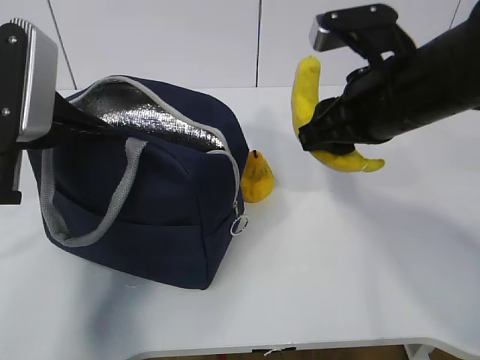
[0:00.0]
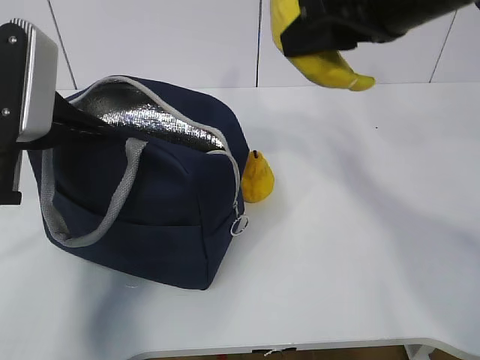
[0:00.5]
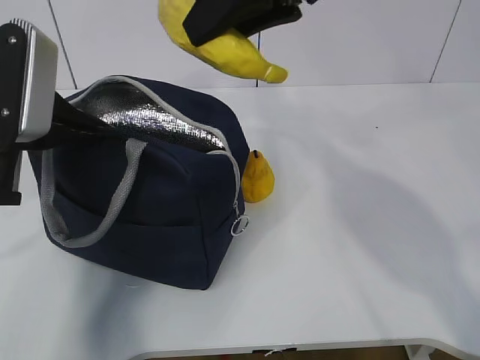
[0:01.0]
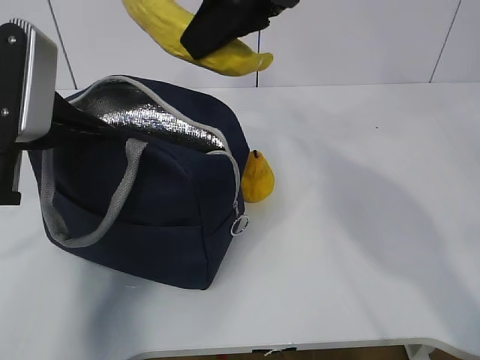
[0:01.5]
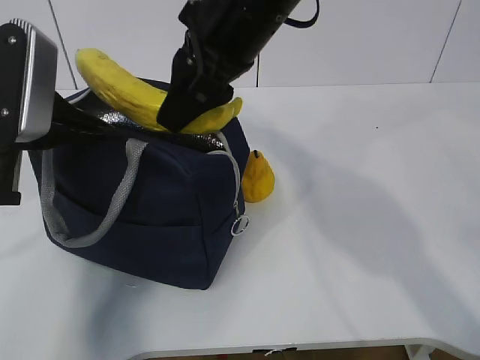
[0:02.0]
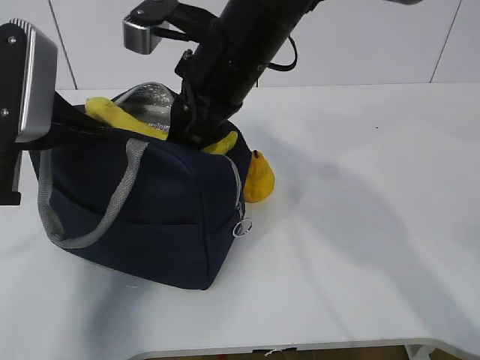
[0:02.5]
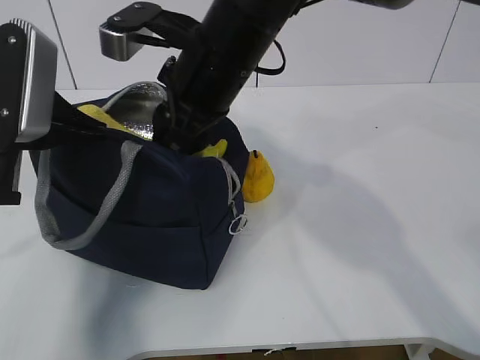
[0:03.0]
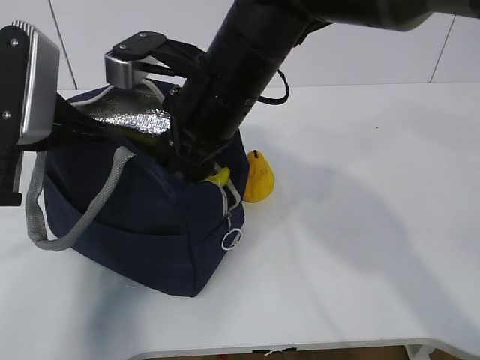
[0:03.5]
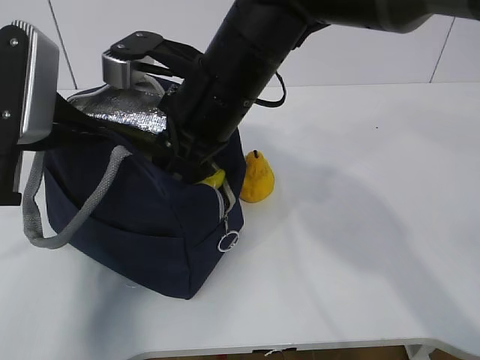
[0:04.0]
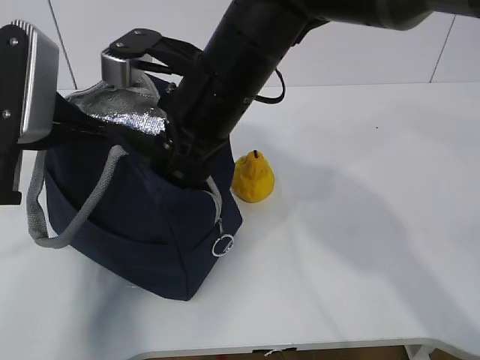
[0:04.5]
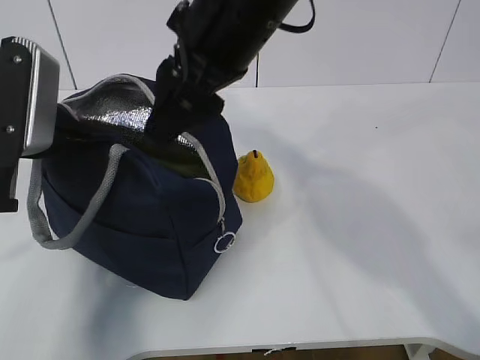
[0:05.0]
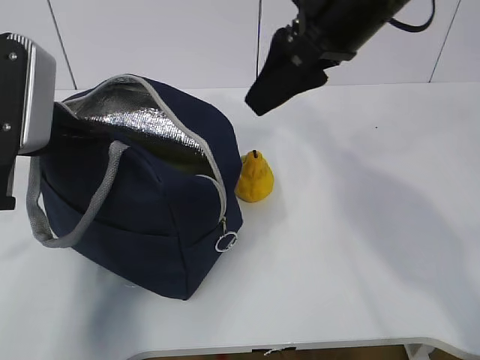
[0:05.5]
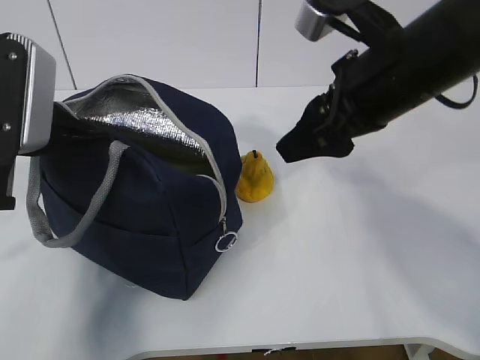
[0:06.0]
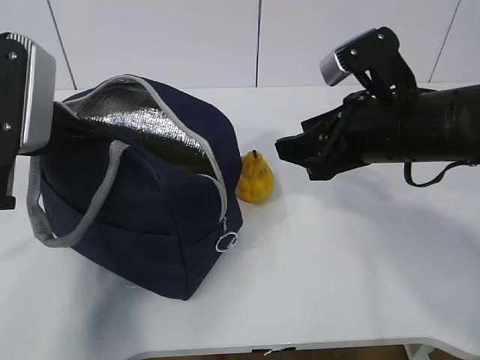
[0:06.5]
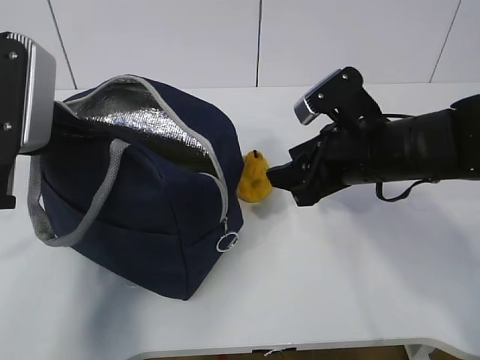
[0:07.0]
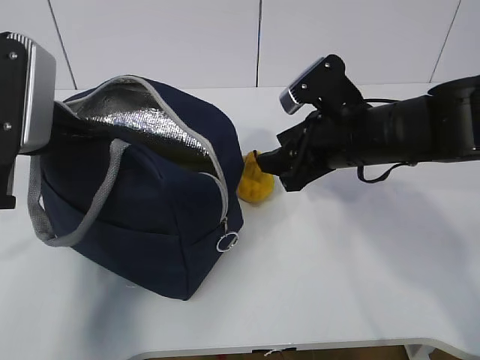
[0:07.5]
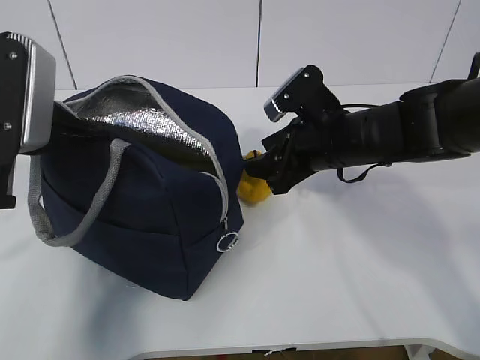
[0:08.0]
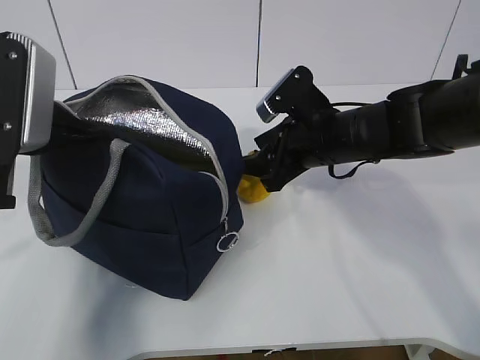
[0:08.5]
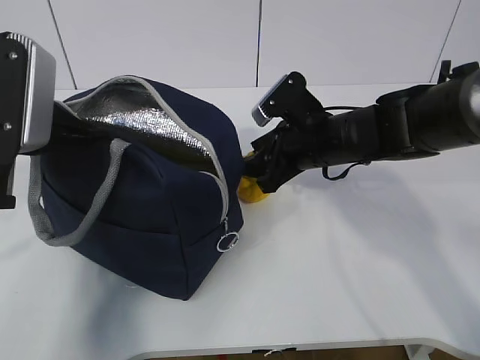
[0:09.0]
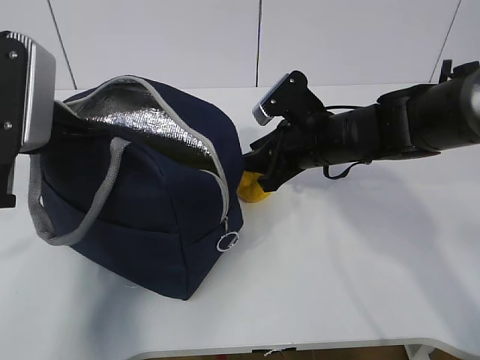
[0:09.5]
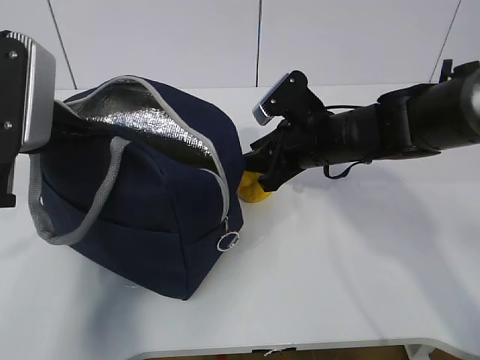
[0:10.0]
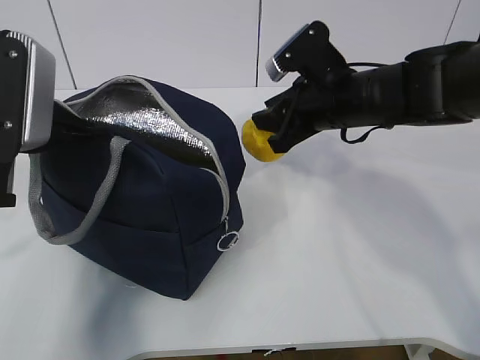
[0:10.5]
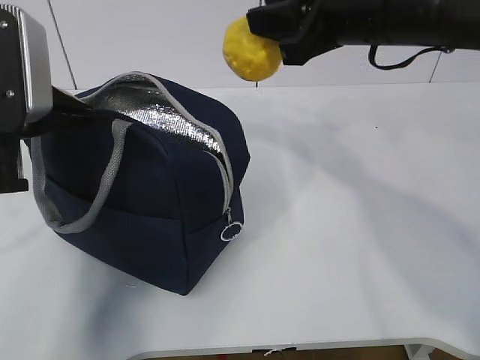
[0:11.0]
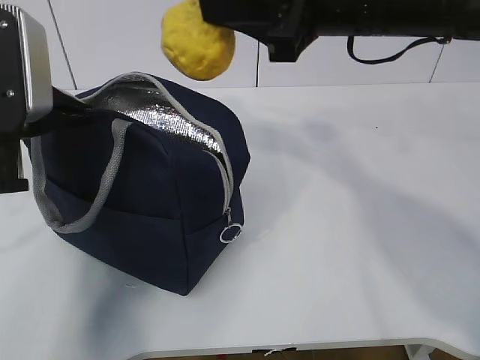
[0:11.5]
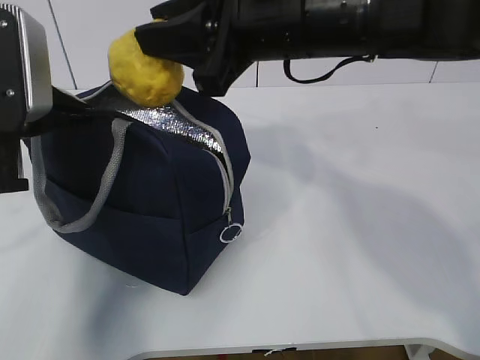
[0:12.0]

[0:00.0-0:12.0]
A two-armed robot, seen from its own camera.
Step, 0:00.0 to 0:04.0: Grab the pear with your right hand.
Step, 0:07.5 to 0:10.0: Grab the lunch bag with your right hand.
0:00.0 to 0:02.0: The right gripper is displaced to the left and upward by roughly 15 cm.
0:02.0 to 0:04.0: The right gripper goes roughly 5 cm downward.
0:04.0 to 0:06.0: The right gripper is displaced to the right by about 15 cm.
0:06.0 to 0:08.0: The right gripper is displaced downward and forward by about 15 cm.
0:08.0 to 0:10.0: The right gripper closes.
0:10.0 to 0:12.0: The right gripper is displaced upward and backward by roughly 20 cm.

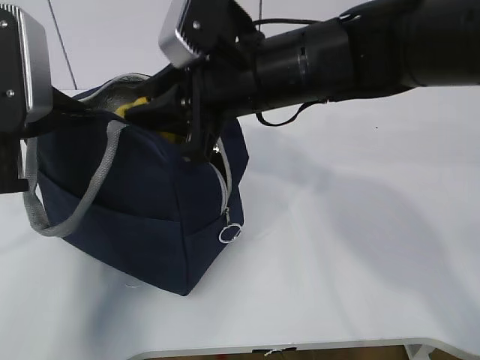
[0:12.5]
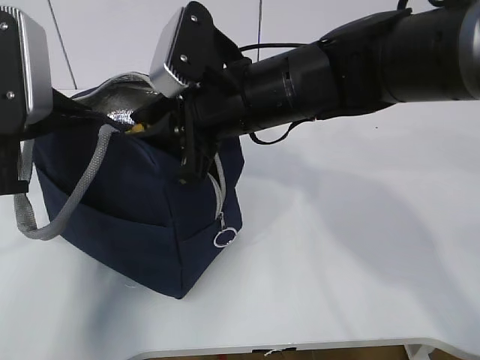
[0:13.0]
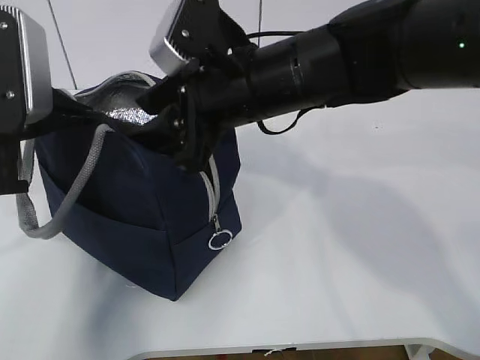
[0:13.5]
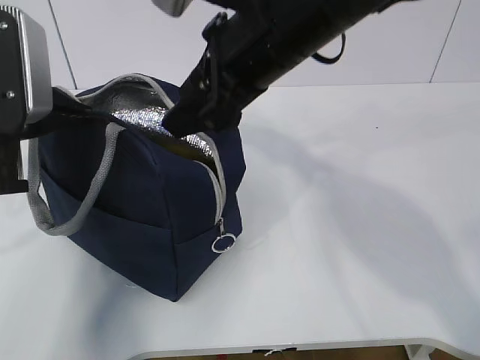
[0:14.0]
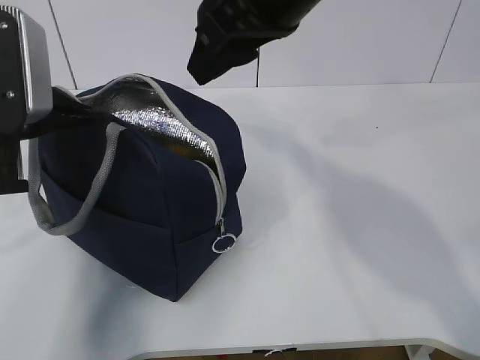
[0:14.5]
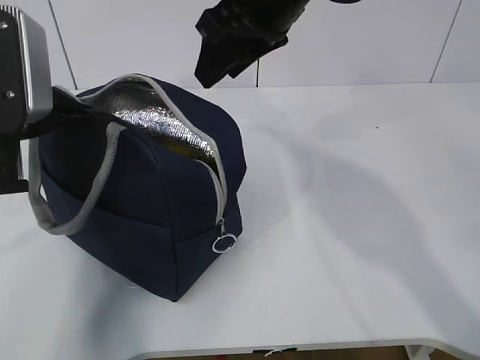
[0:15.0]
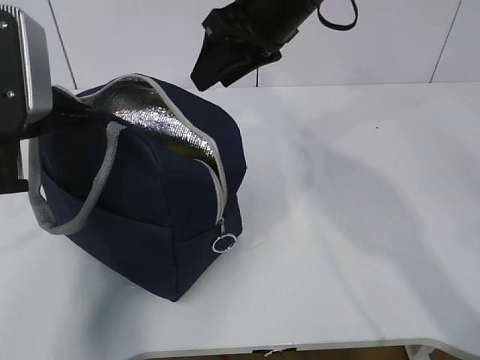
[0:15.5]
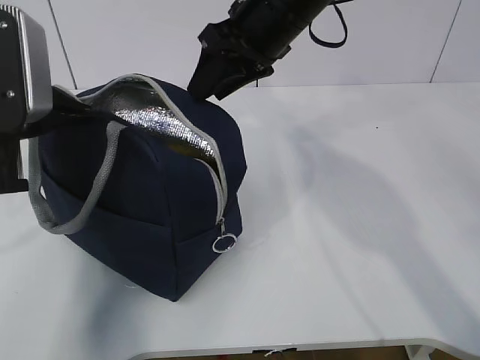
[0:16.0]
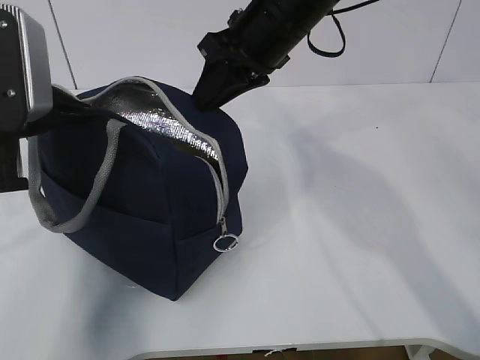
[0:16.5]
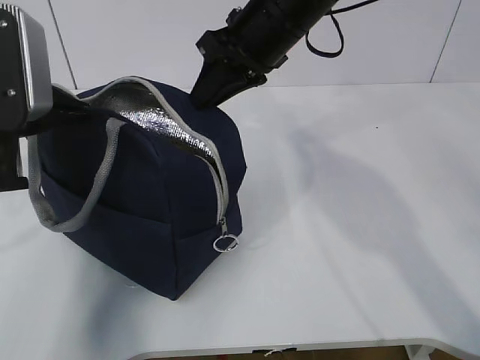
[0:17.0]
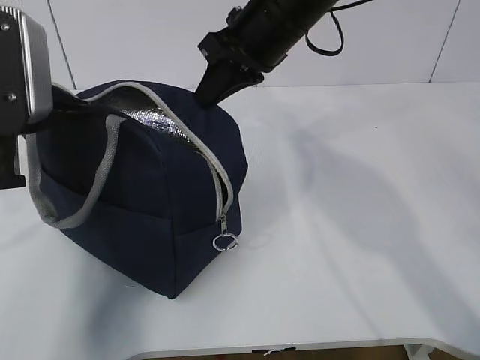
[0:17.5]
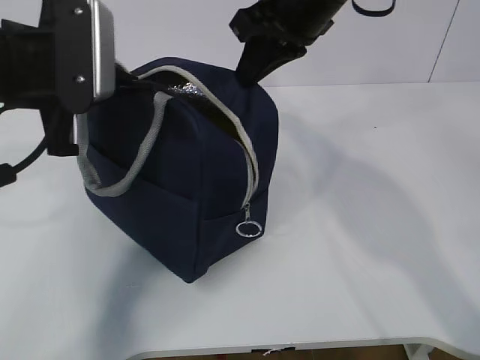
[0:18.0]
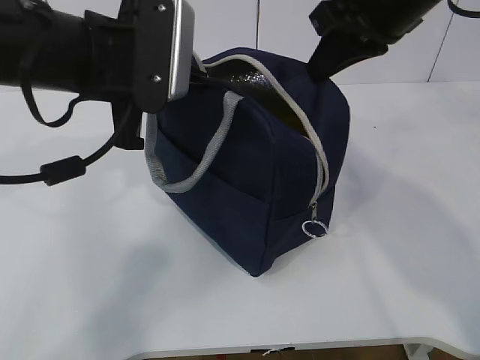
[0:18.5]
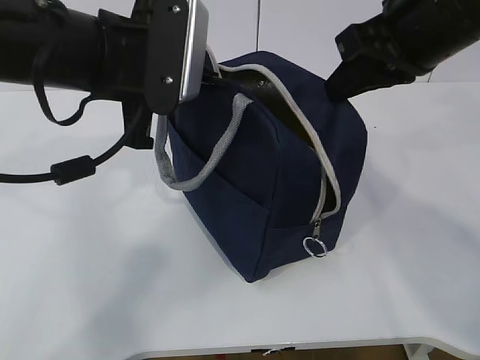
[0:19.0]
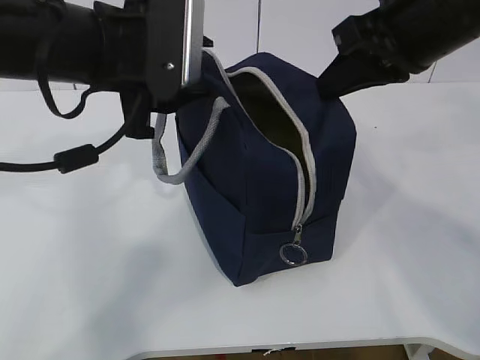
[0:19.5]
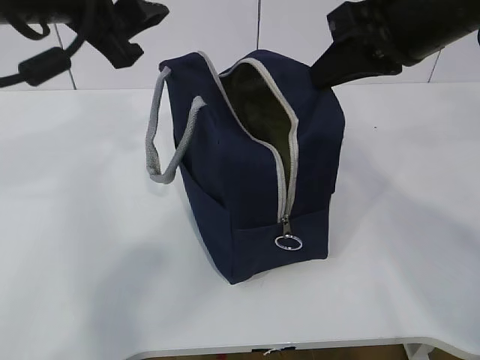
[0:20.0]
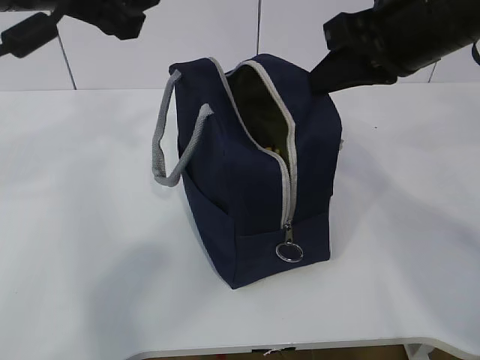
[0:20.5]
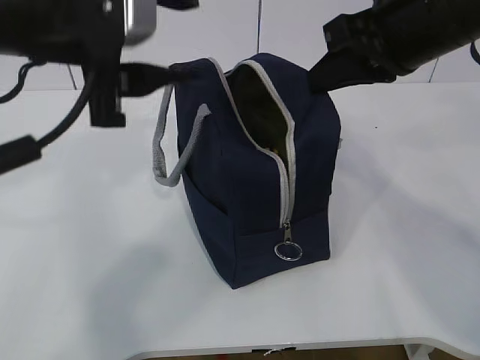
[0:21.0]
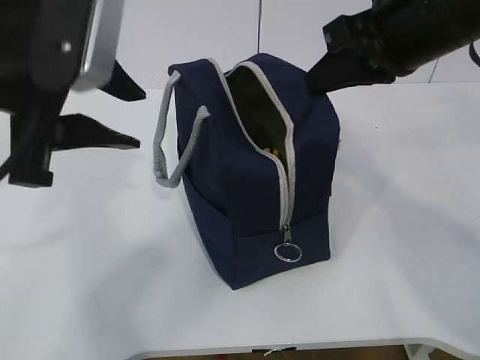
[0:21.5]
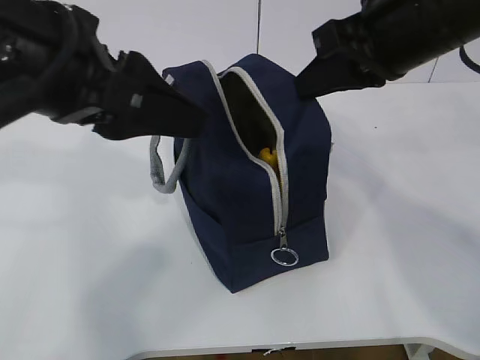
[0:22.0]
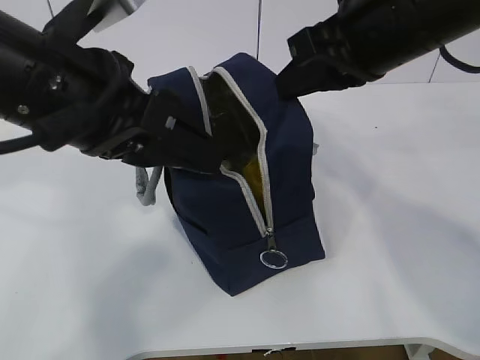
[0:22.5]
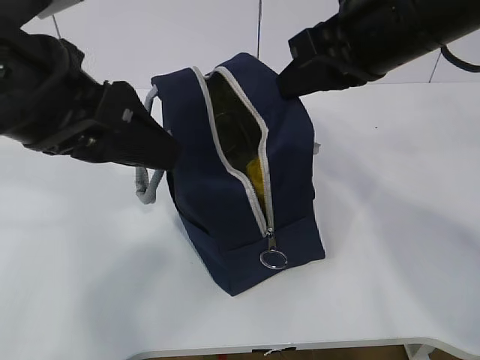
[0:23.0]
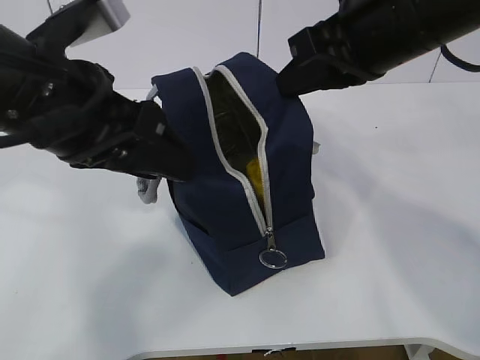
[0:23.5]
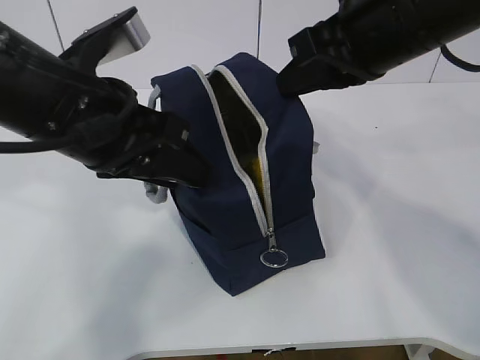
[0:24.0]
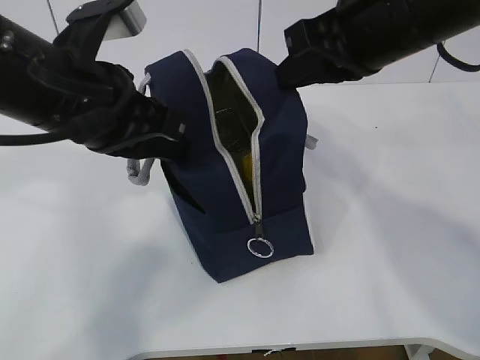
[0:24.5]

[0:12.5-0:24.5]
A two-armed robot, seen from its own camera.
Step, 0:12.5 to 0:17.5: Move the lunch bag to the right.
0:12.5 to 0:14.5: The right gripper moves upward, about 10 cm, and opens its fingers.
0:14.5 to 0:16.5: The right gripper moves forward and downward, some 10 cm, and closes up.
0:16.5 to 0:18.5: The left gripper goes about 10 cm to the right. Meanwhile the right gripper goes some 10 cm to the right and backward, and closes.
0:18.5 to 0:20.5: The left gripper goes approximately 5 cm upward, and opens up.
0:20.5 to 0:22.5: The left gripper moves downward, roughly 5 cm.
0:22.5 to 0:24.5: The left gripper closes its fingers.

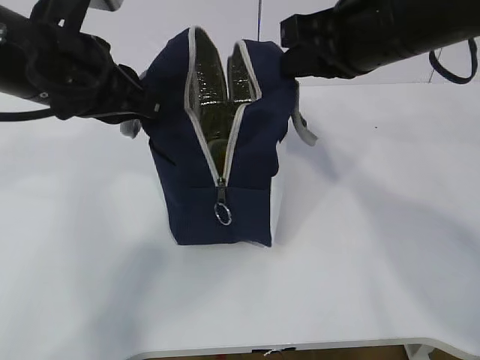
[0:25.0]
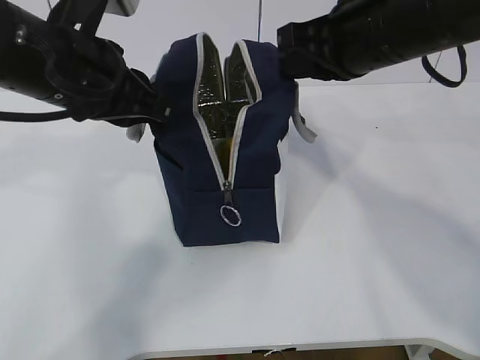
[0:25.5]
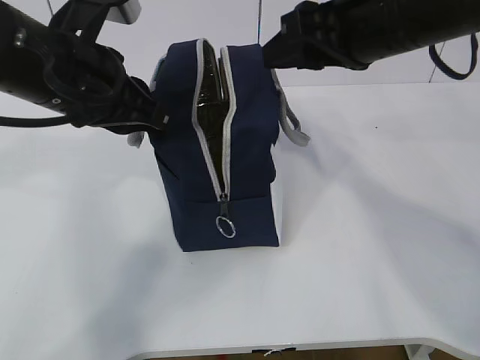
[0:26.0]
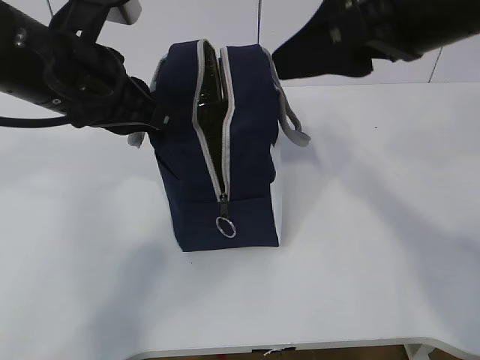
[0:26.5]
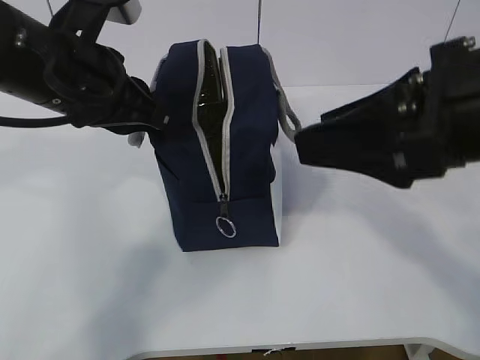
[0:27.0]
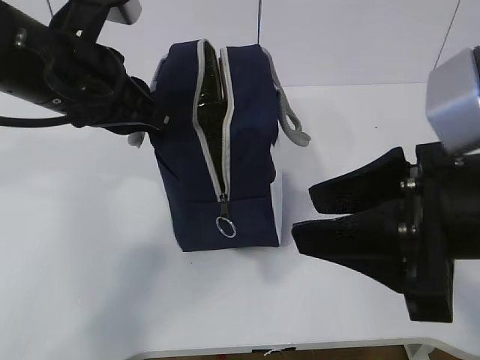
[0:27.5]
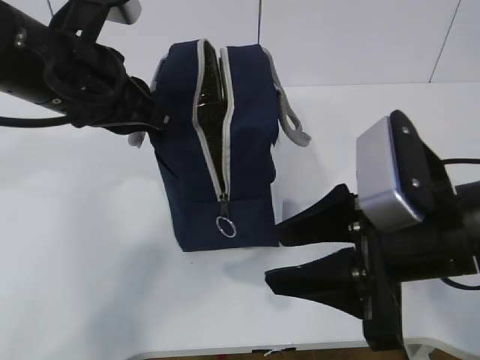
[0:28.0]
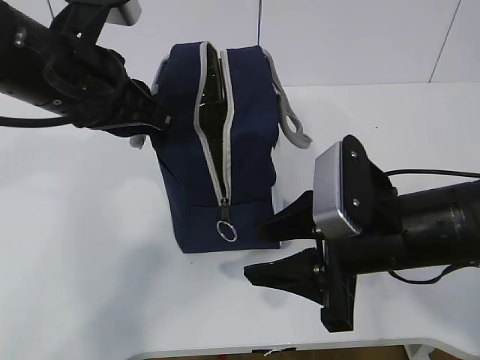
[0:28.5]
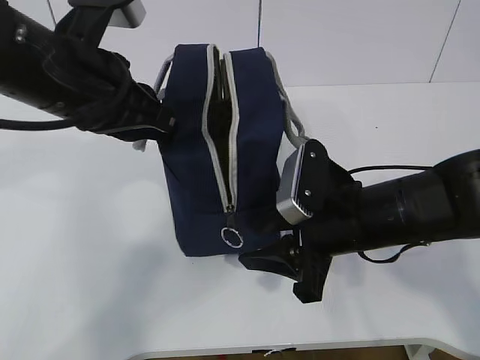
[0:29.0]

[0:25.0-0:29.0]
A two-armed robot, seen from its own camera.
0:25.0 to 0:27.0: The right gripper shifts some 10 cm backward, and opens.
0:27.0 to 0:29.0: The right gripper goes some 20 cm downward and forward.
